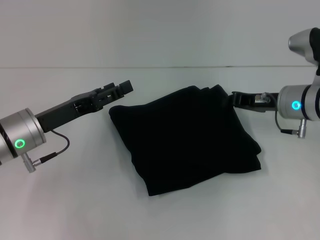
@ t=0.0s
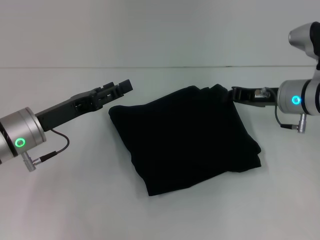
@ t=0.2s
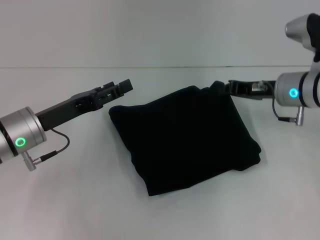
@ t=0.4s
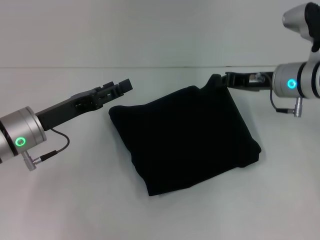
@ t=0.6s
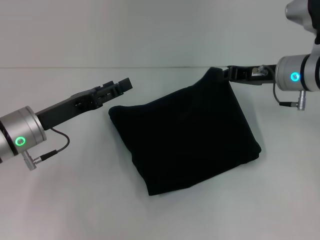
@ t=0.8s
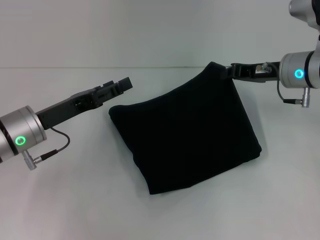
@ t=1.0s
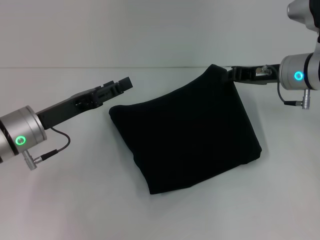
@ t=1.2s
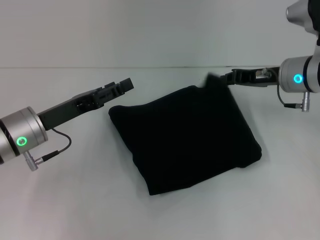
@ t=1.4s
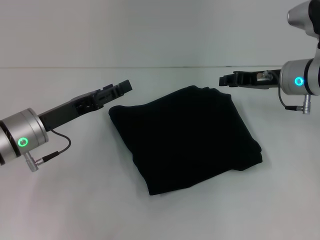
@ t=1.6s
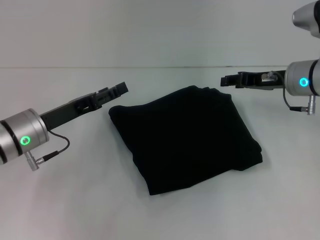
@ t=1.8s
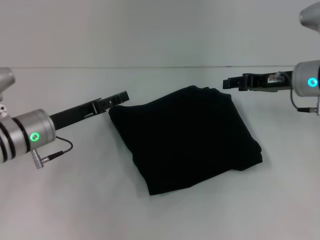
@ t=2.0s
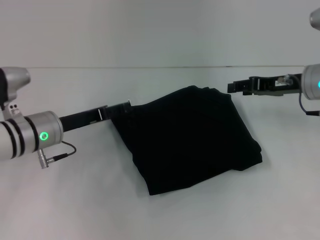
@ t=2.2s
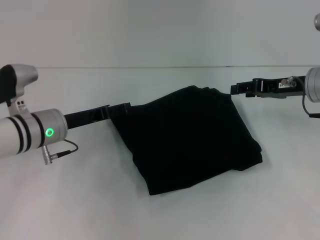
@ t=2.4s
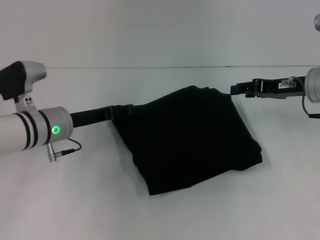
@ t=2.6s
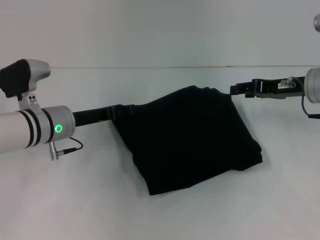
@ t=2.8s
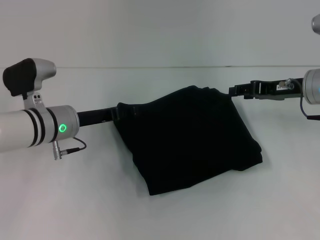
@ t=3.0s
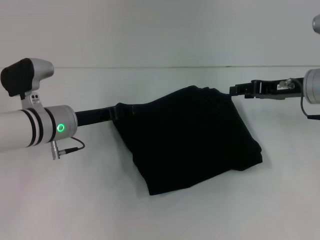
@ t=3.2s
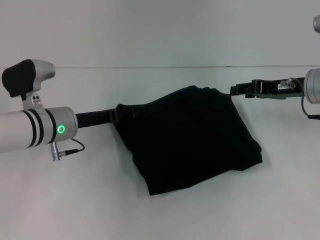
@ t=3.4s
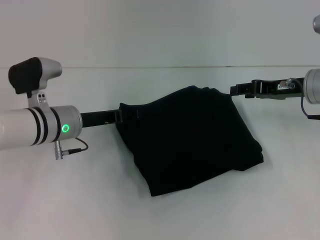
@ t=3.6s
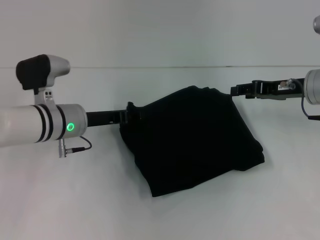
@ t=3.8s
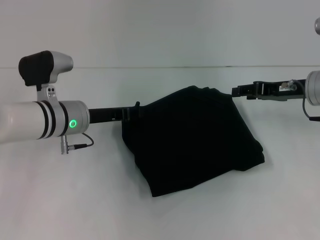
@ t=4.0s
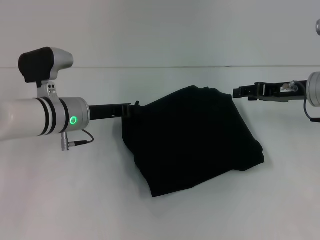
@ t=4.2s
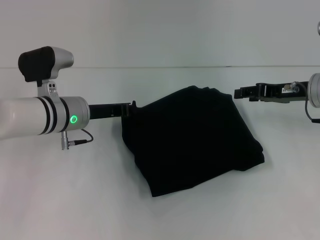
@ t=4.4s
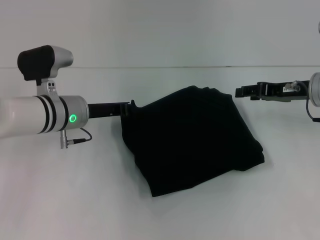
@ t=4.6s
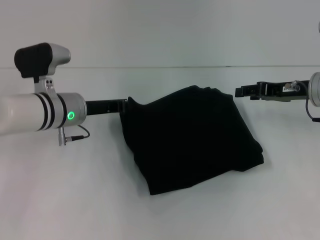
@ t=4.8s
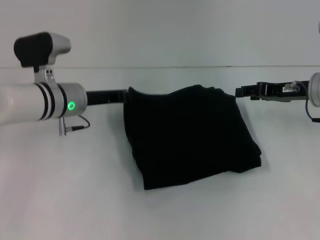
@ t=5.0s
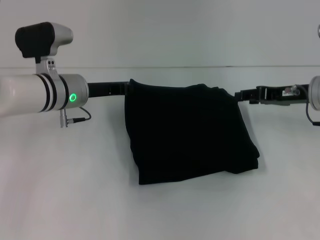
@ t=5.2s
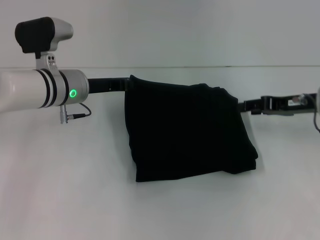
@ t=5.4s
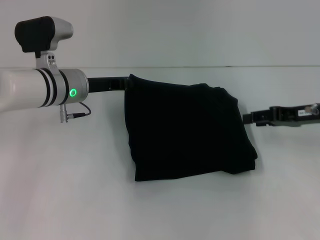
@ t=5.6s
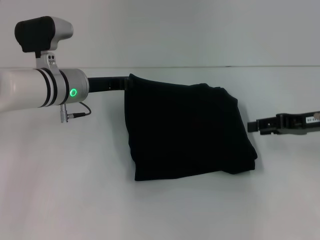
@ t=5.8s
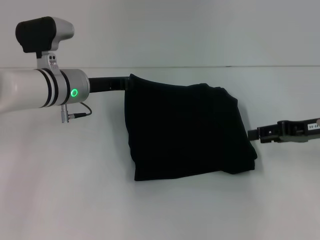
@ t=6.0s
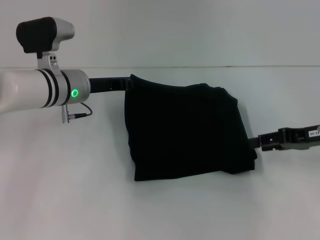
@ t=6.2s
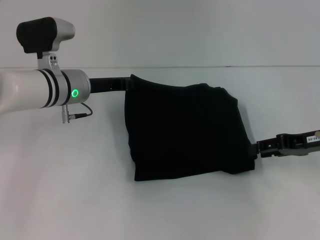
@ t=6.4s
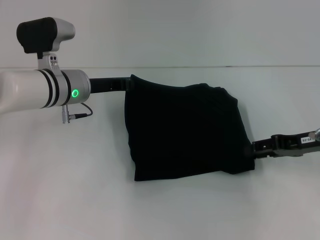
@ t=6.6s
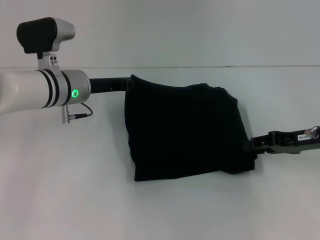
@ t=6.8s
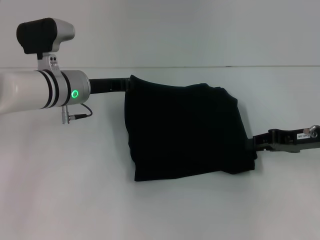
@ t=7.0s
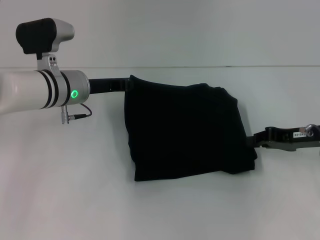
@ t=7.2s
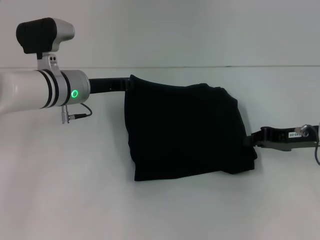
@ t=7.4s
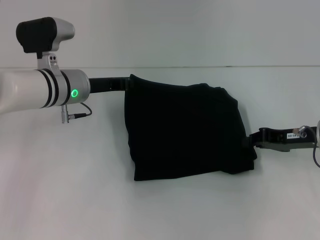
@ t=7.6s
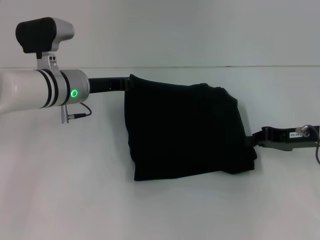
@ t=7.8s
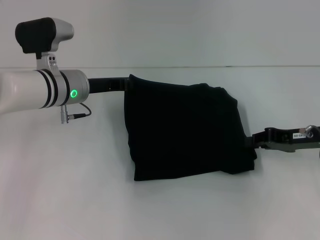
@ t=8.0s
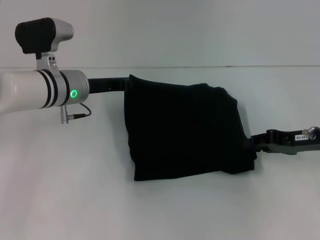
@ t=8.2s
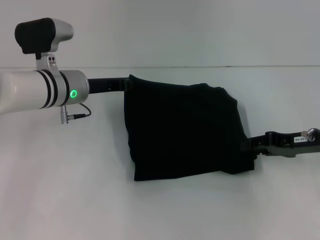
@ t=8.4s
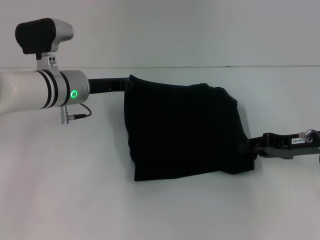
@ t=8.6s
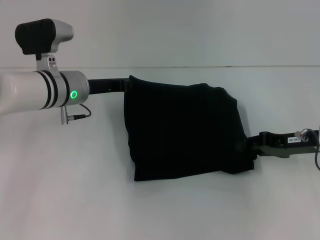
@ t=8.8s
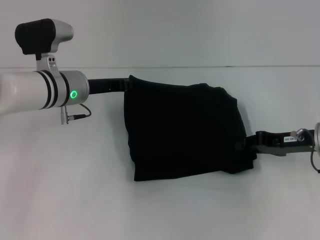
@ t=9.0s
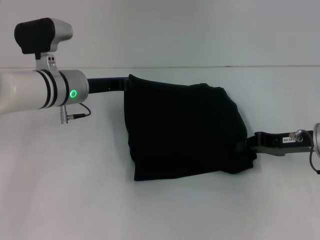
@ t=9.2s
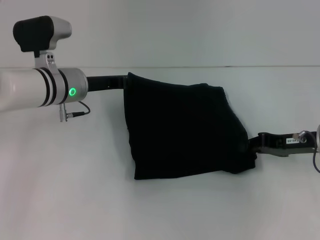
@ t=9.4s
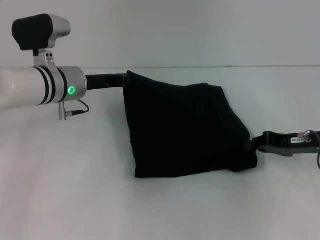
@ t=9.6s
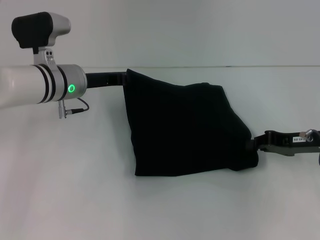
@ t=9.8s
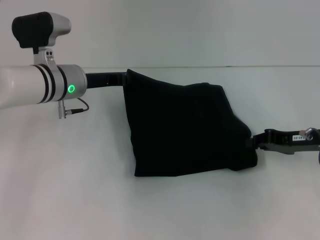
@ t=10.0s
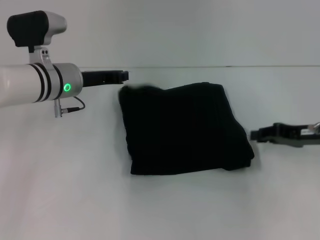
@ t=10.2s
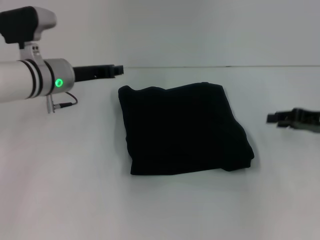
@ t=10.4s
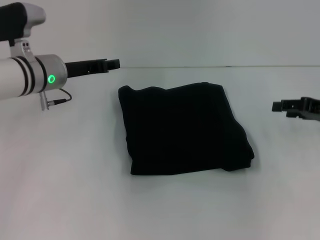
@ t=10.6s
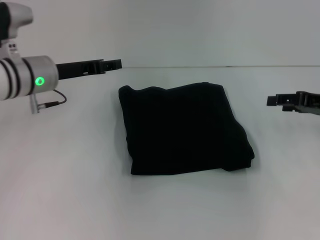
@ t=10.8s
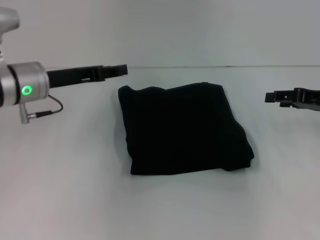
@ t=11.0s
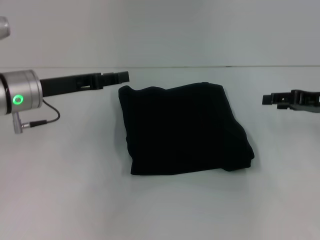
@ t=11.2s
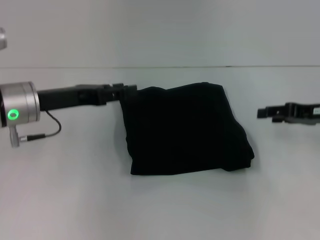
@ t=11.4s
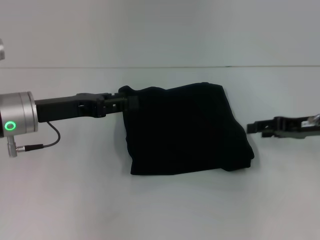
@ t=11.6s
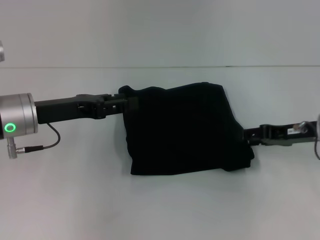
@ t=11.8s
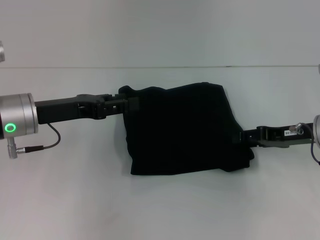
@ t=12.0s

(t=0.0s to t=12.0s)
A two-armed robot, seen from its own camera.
t=0.0s - t=1.6s: The grippers move only a little.
t=1.6s - t=3.0s: The left gripper moves forward, roughly 5 cm. Meanwhile the right gripper opens up.
t=3.0s - t=4.4s: The left gripper closes.
t=4.4s - t=6.0s: The right gripper moves approximately 5 cm.
t=6.0s - t=7.6s: The right gripper closes its fingers.
t=7.6s - t=9.0s: Neither gripper changes place.
t=9.0s - t=10.4s: The right gripper moves to the right, approximately 5 cm.
t=10.4s - t=12.0s: The left gripper travels backward by about 10 cm, and opens, while the right gripper goes approximately 5 cm to the left, and opens.

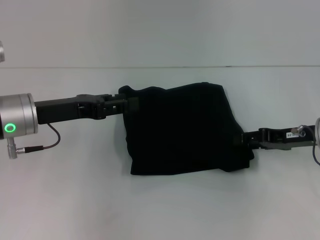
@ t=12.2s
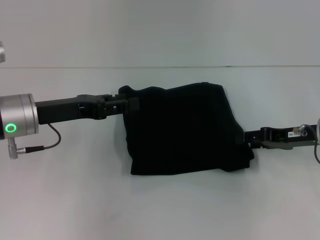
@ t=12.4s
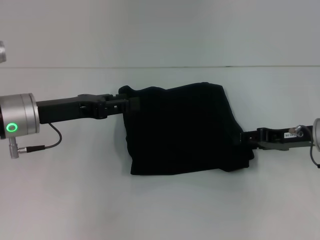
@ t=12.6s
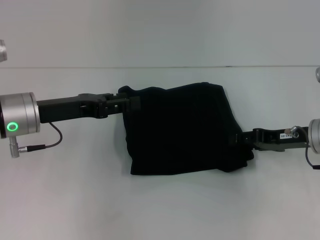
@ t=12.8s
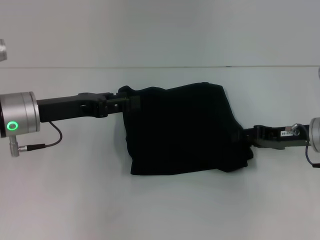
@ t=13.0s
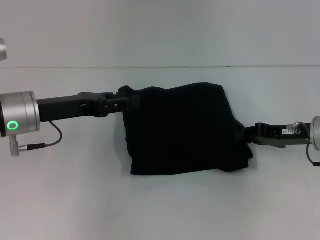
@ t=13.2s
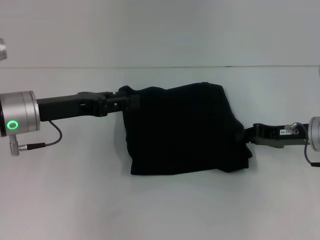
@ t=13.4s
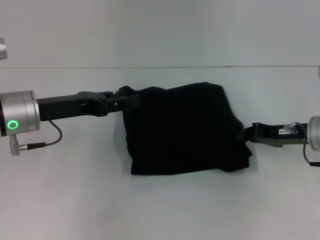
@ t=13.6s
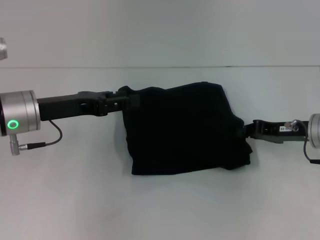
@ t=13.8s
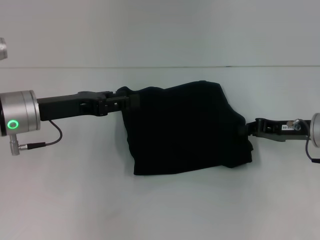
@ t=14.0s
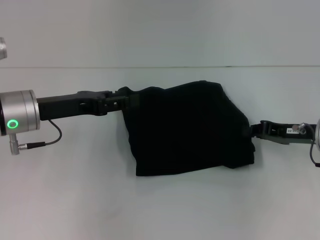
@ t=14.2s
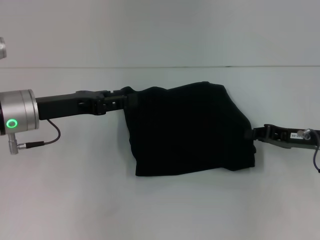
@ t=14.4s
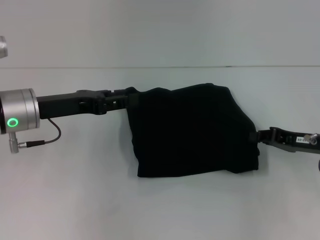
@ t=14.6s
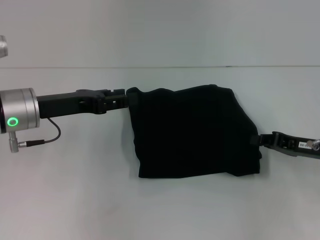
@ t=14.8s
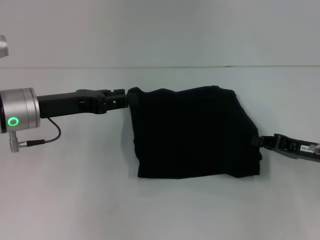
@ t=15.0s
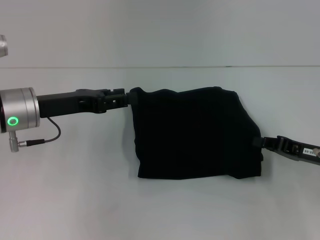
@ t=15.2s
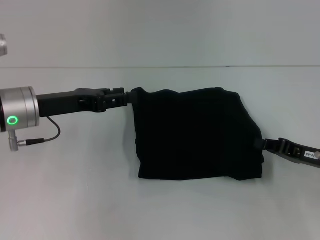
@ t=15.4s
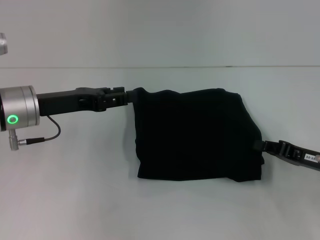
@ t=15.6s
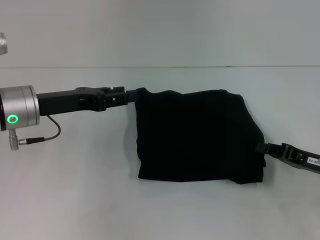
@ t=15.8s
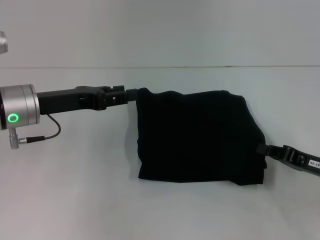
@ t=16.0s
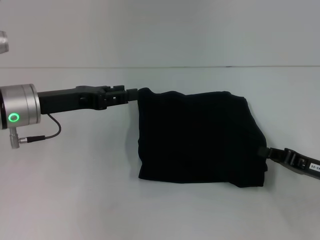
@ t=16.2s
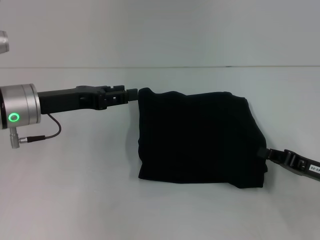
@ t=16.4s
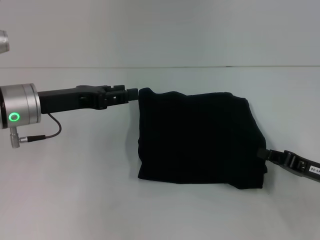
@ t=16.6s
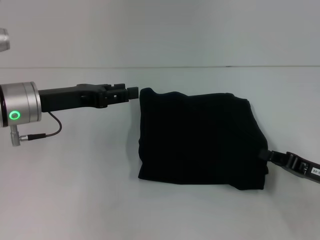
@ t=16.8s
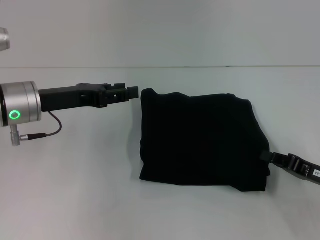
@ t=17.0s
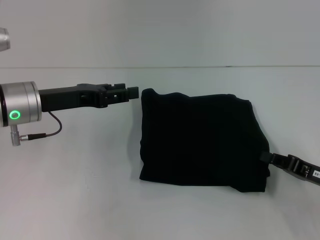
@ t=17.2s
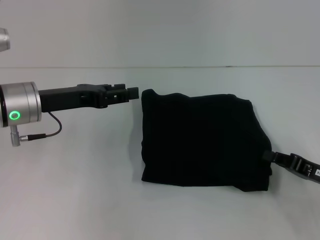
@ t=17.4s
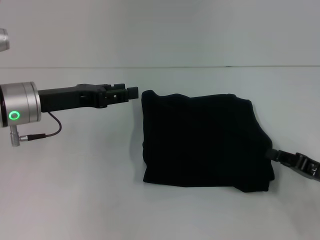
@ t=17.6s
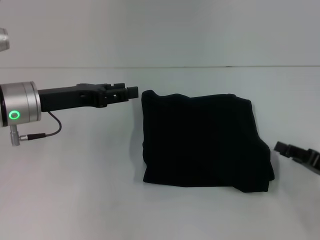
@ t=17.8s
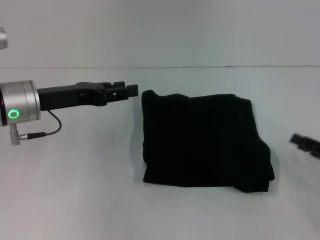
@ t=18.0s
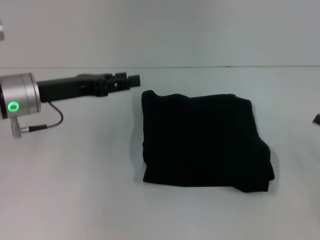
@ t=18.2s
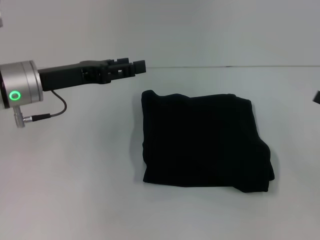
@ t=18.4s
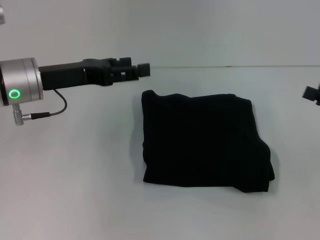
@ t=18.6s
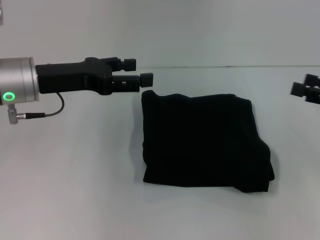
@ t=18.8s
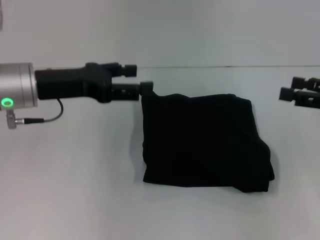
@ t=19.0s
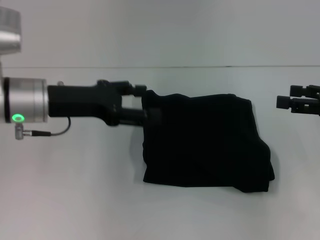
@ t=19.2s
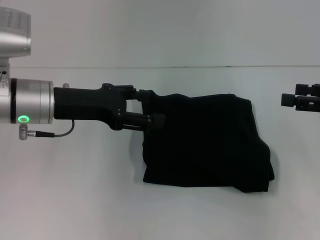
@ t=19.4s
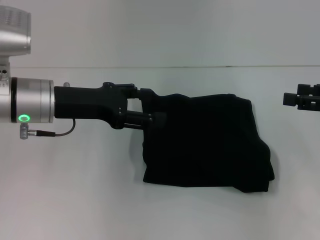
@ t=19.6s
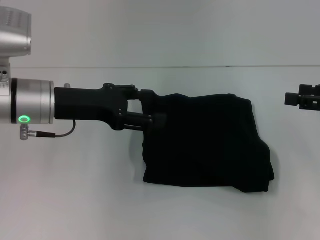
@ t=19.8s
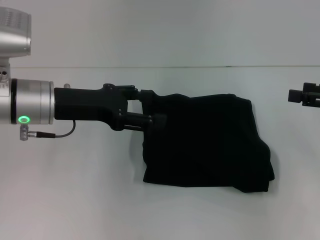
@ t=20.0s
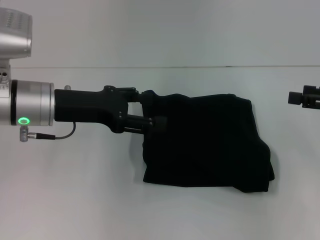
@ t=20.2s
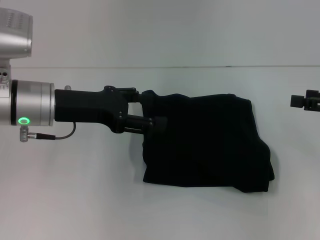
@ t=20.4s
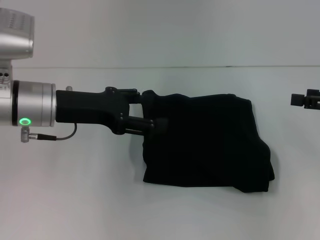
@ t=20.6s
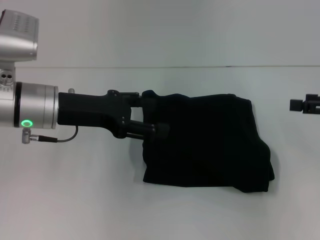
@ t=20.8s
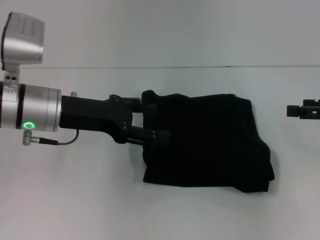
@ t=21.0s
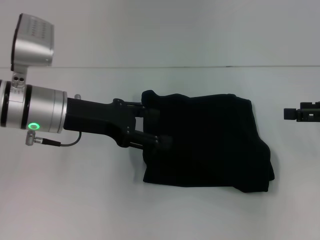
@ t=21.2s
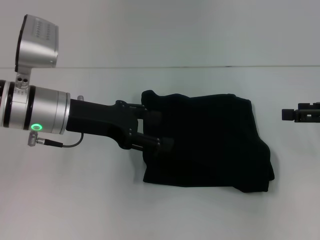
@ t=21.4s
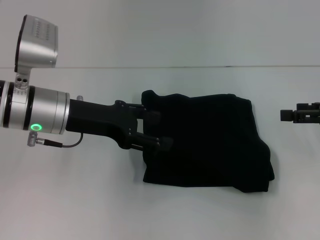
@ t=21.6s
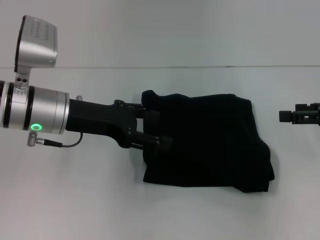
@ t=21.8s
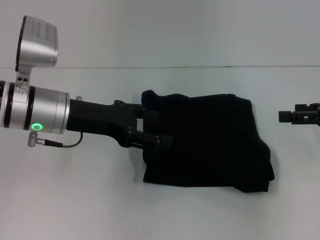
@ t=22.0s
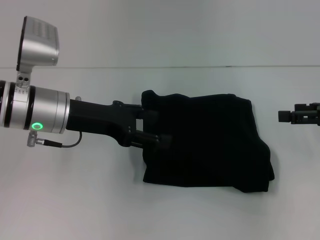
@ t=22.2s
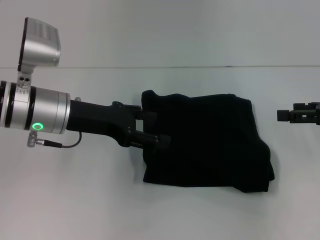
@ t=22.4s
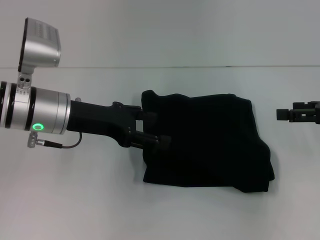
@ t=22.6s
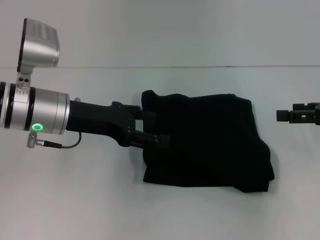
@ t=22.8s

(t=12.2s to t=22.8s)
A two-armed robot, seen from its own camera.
t=12.2s - t=13.8s: The right gripper closes its fingers.
t=13.8s - t=15.2s: The right gripper is displaced backward by some 5 cm.
t=15.2s - t=16.8s: The grippers move only a little.
t=16.8s - t=18.2s: The right gripper moves to the right, roughly 5 cm, and opens its fingers.
t=18.2s - t=19.8s: The right gripper is displaced upward and forward by roughly 10 cm, and opens its fingers.
t=19.8s - t=21.2s: The grippers stay close to where they were, moving slightly.
t=21.2s - t=22.8s: Both grippers stay about where they are.
